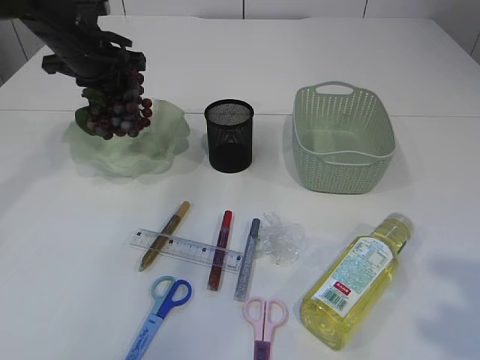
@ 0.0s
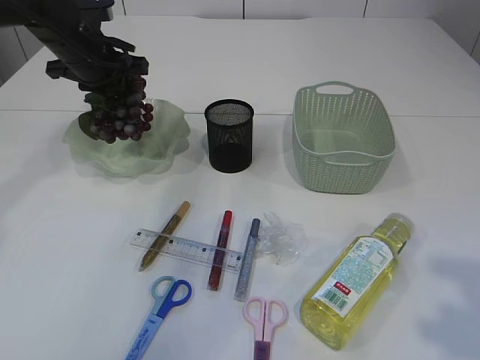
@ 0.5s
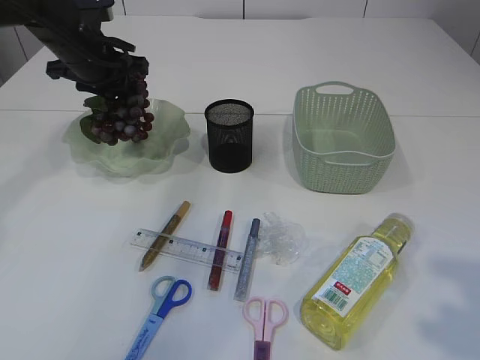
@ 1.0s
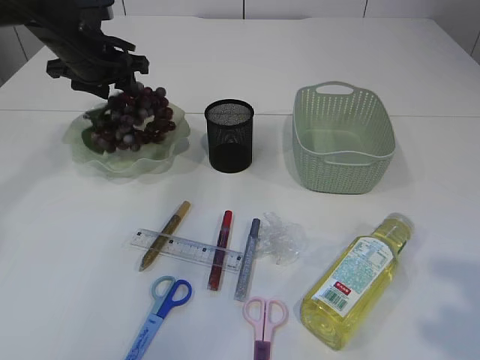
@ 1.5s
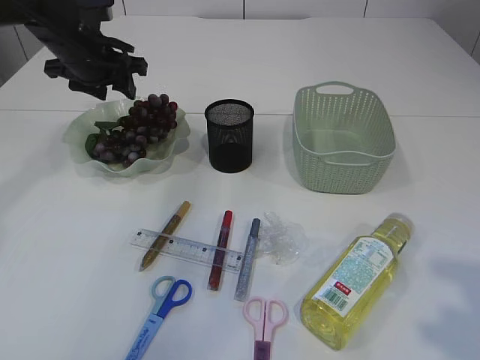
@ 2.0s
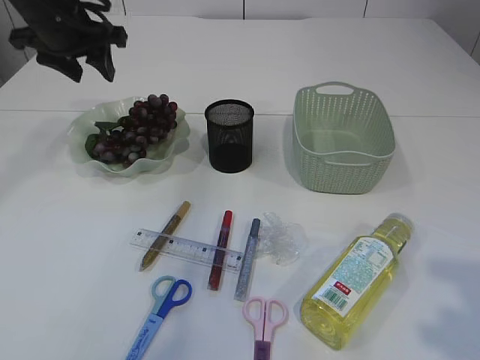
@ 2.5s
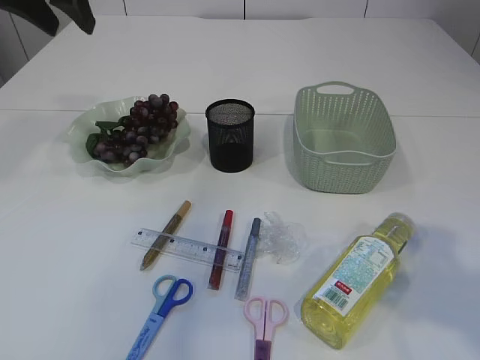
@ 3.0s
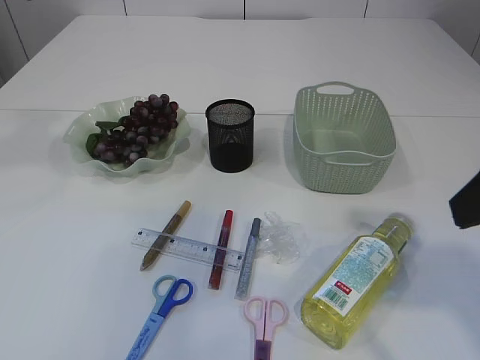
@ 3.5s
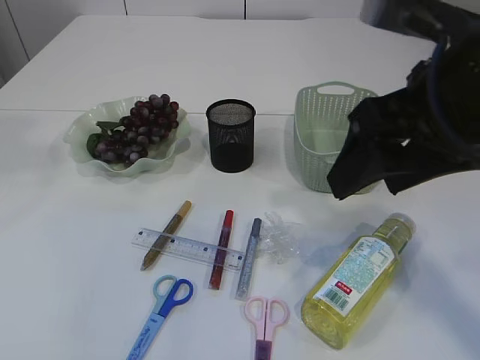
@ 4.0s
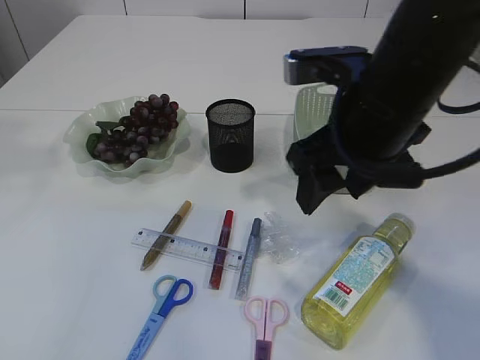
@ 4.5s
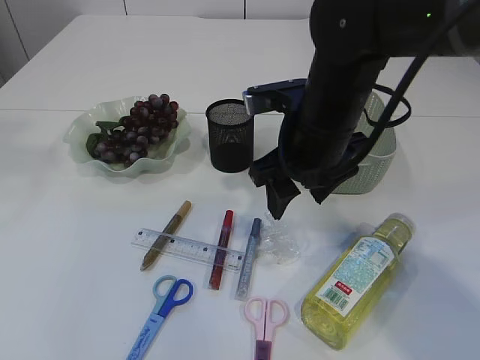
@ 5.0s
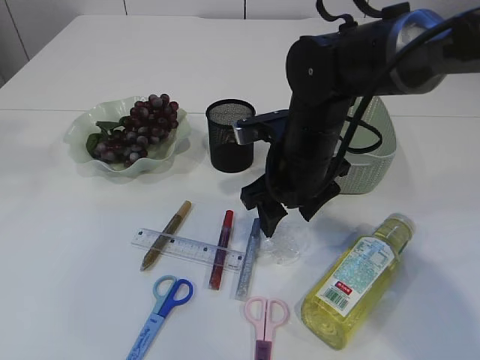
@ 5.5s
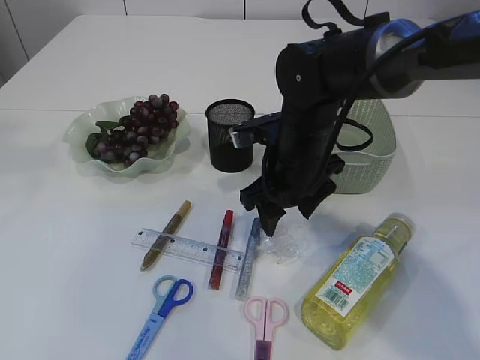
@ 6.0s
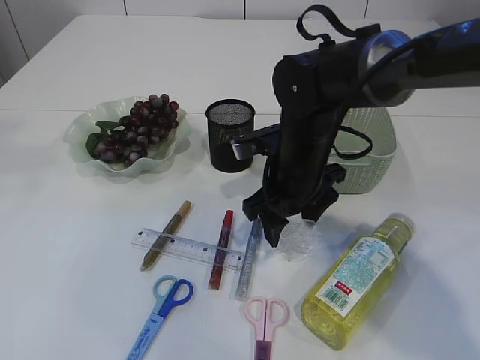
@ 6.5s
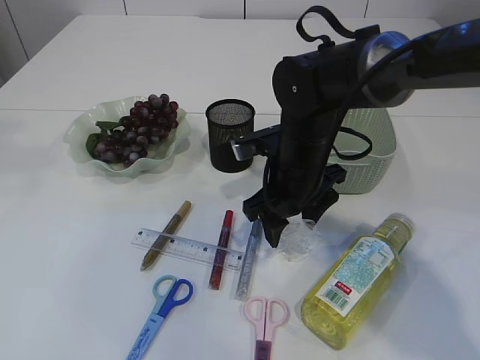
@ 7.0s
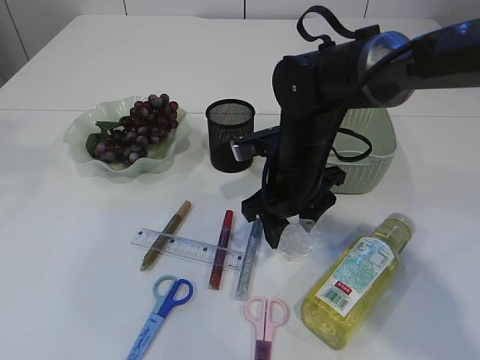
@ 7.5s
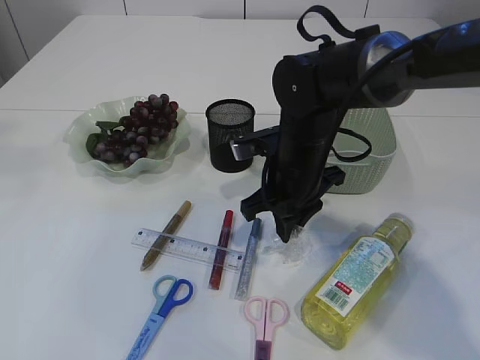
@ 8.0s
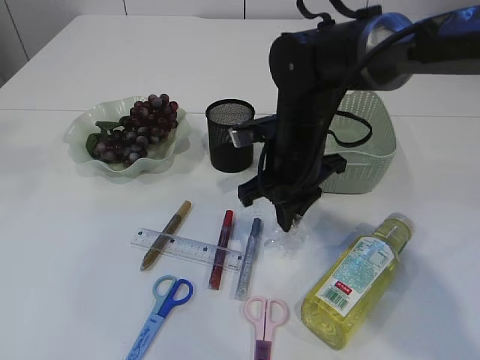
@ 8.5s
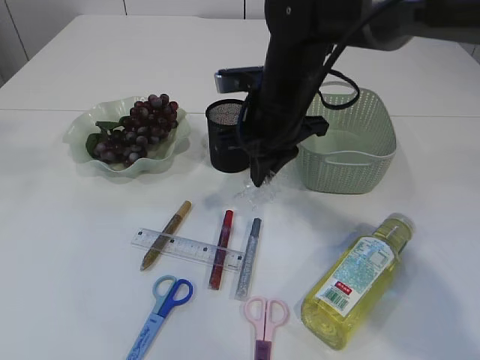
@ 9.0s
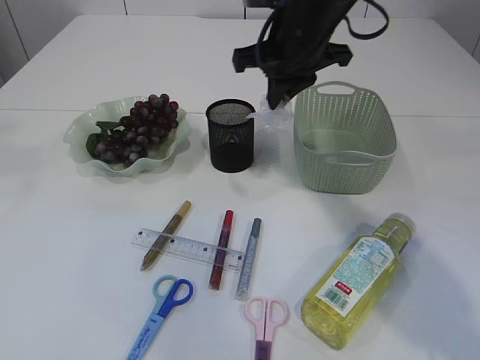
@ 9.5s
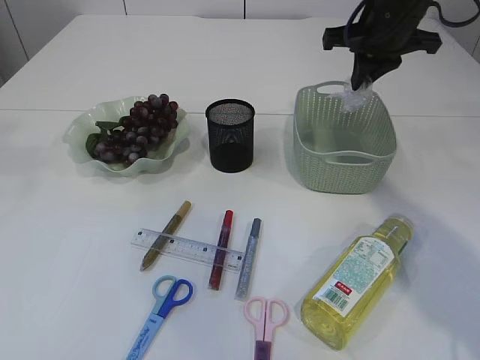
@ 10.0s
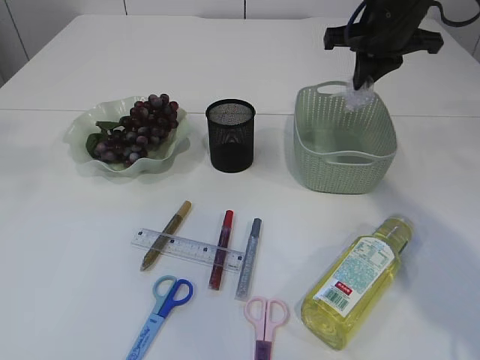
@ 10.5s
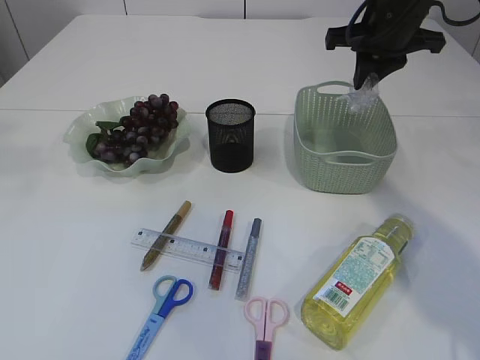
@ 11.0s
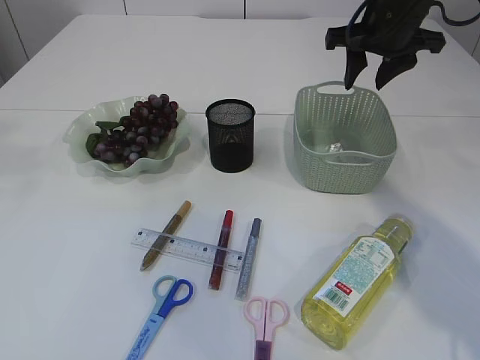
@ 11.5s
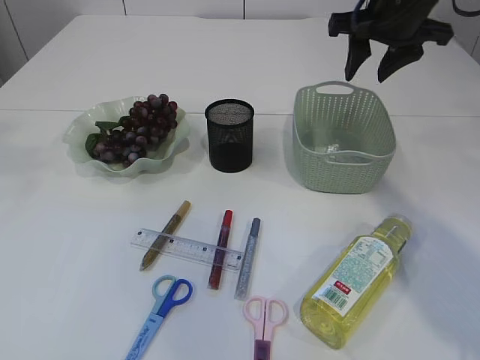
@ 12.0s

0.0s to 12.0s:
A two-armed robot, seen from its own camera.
Step, 0.0s to 2.0s: Place the grapes in the plate.
Step, 2.5s to 8.5s: Pick up the plastic.
0.0s to 2.0s: The left gripper opens up.
2.0s to 4.0s: The right gripper shifts some 20 cm forward and to the left. The left gripper moves upward and backward, roughly 30 cm.
4.0s to 6.0s: The right gripper goes about 25 cm downward, forward and to the left.
6.0s to 8.0s: The right gripper closes its fingers.
8.0s to 10.0s: The right gripper is displaced upward, to the right and forward by about 20 cm.
10.0s to 12.0s: The right gripper opens.

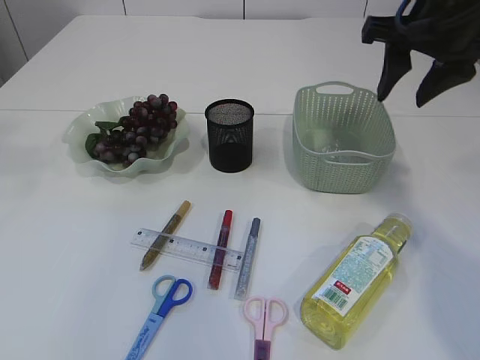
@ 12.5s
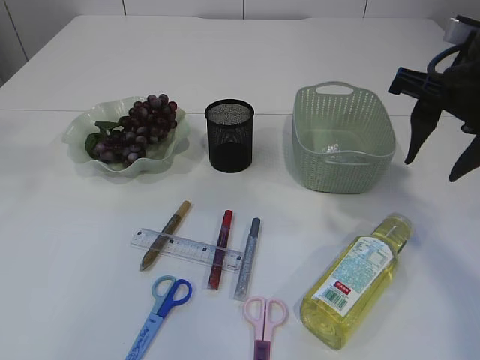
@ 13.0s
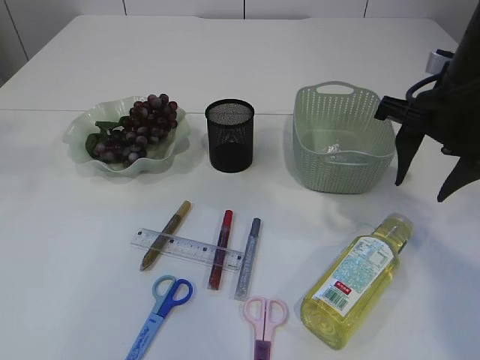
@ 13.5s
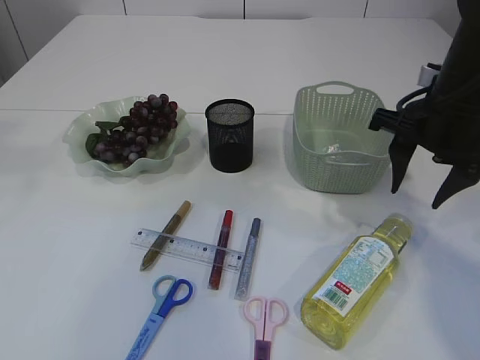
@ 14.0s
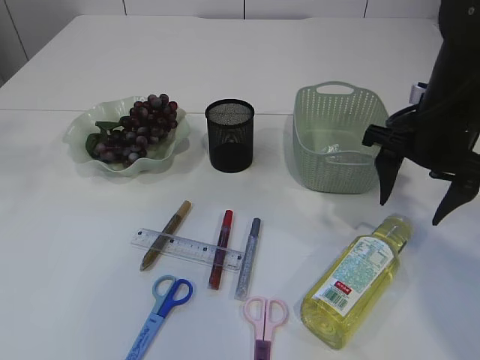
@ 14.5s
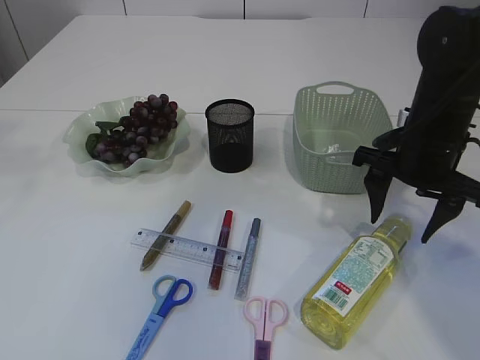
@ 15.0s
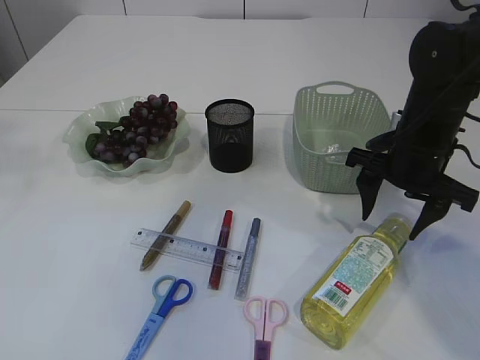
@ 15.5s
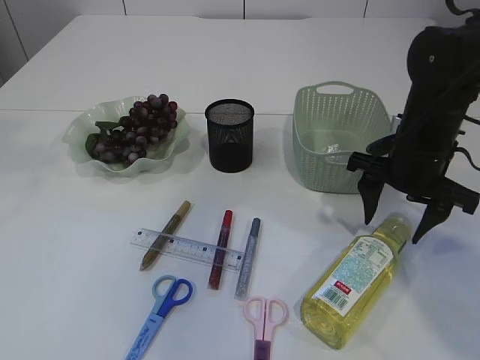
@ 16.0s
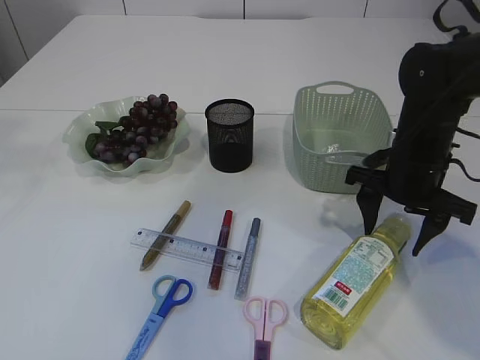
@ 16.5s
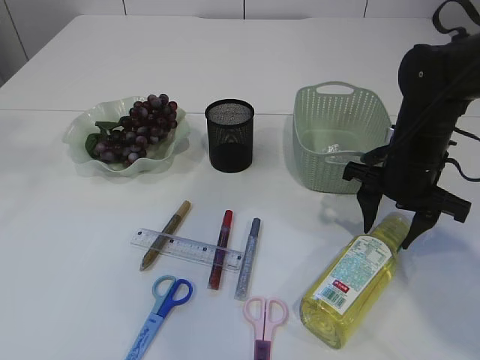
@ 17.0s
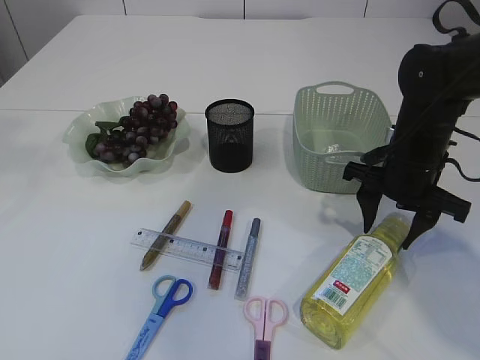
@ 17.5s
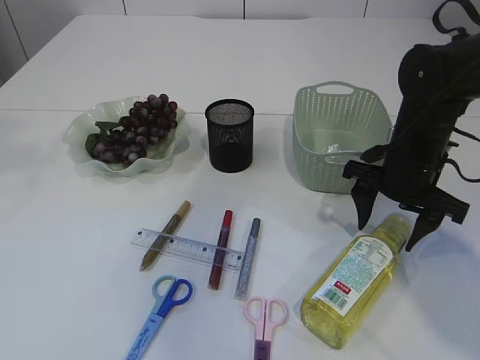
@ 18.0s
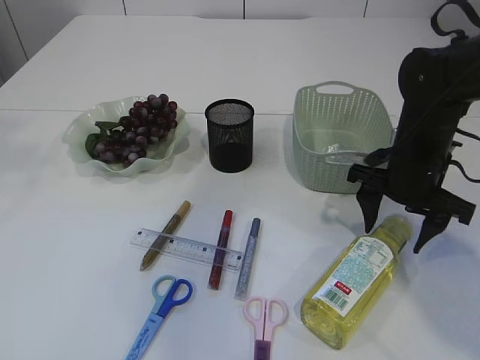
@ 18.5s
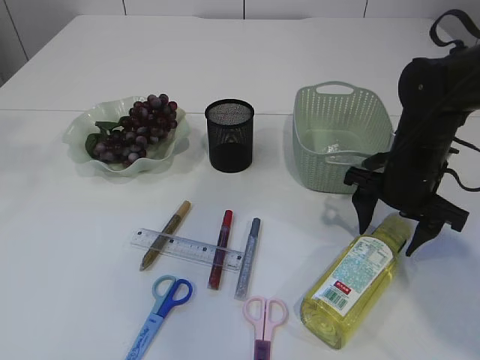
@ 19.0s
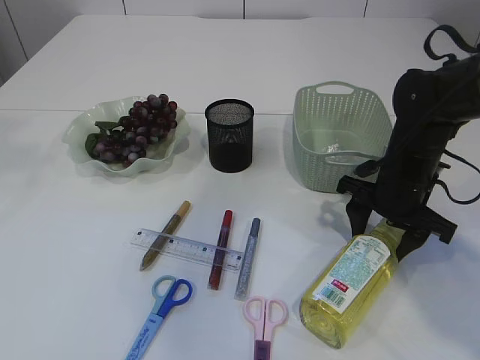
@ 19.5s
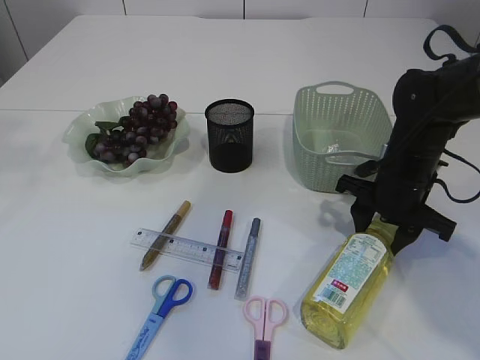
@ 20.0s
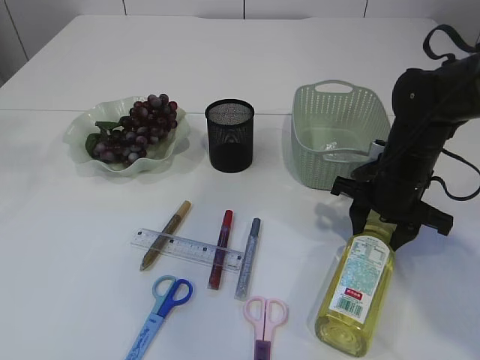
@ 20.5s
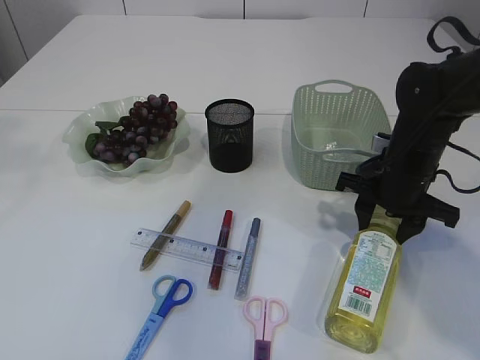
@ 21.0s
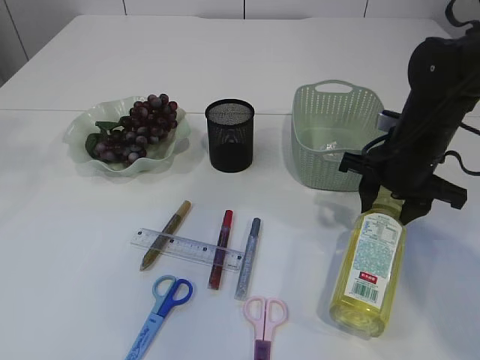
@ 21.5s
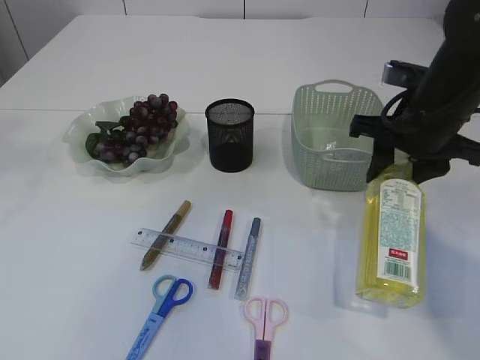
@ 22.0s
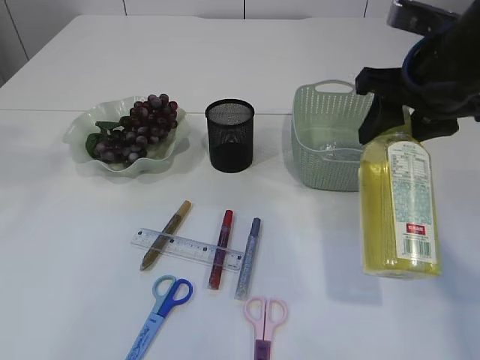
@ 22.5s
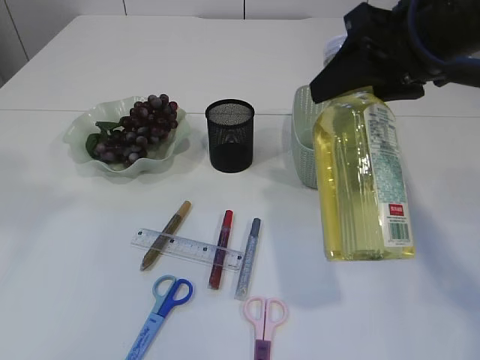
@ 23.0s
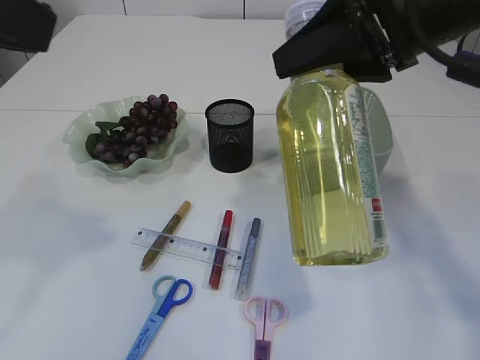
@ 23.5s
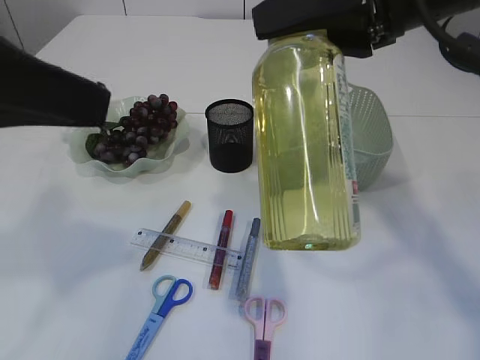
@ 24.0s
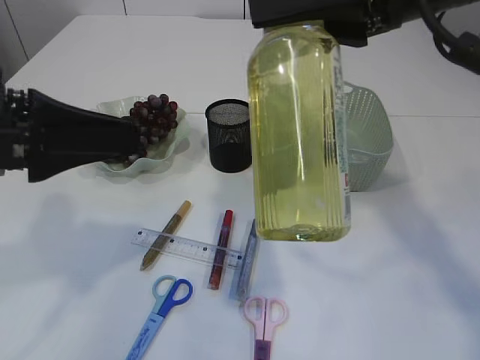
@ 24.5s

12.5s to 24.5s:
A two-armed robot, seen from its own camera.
Step, 12.5s to 22.0s: Pick up the bottle with the right arm.
12.5s to 14.5s: The right gripper travels downward by about 10 cm.
14.5s to 16.5s: The right gripper moves downward, about 5 cm.
16.5s to 18.5s: Both grippers stay put.
18.5s to 20.5s: The right gripper closes.
20.5s to 22.5s: The right gripper is displaced upward by roughly 15 cm.
22.5s to 24.5s: The right gripper shifts approximately 10 cm upward and to the left. The left gripper travels downward by roughly 20 cm.

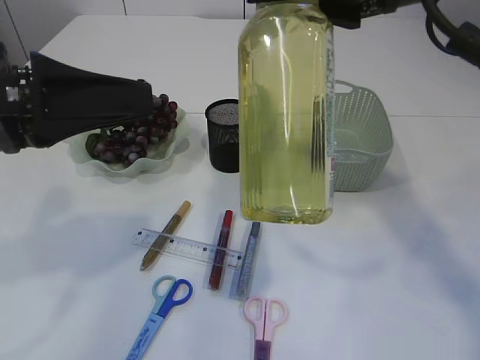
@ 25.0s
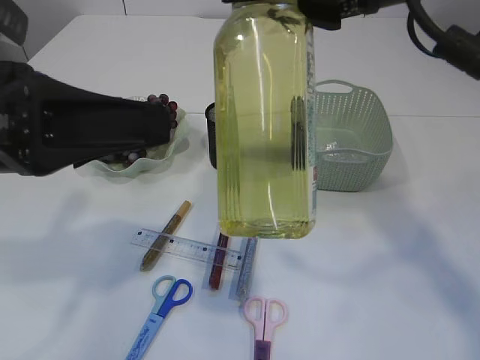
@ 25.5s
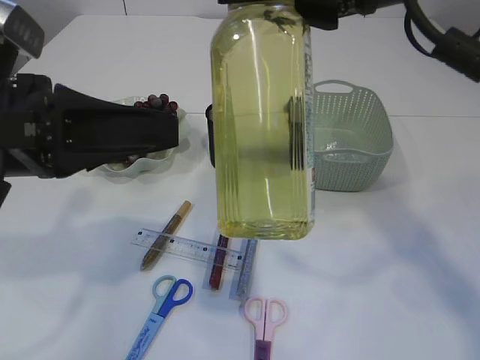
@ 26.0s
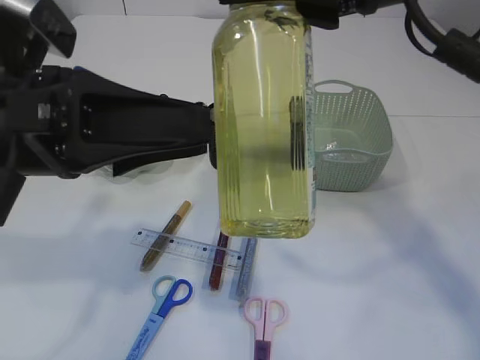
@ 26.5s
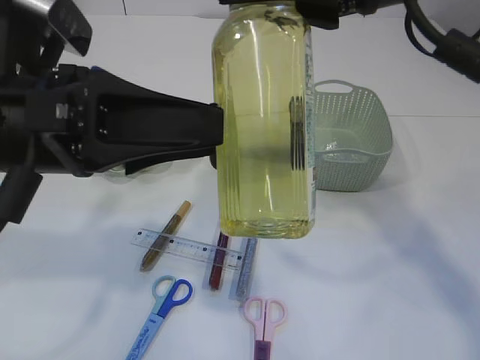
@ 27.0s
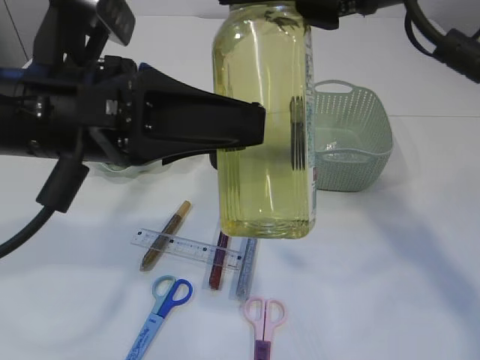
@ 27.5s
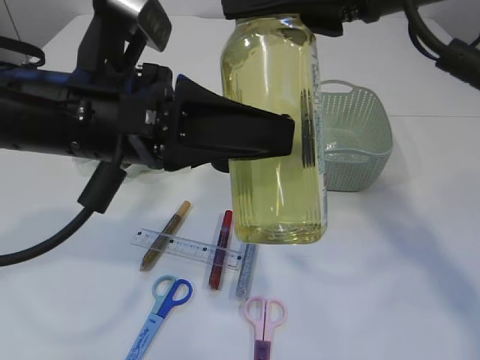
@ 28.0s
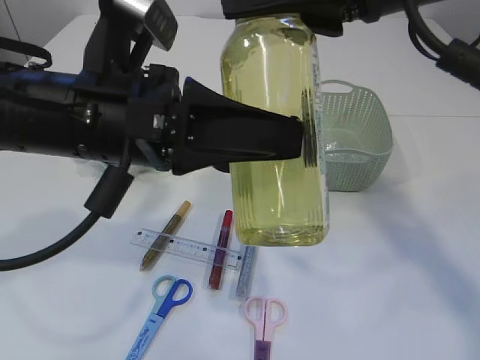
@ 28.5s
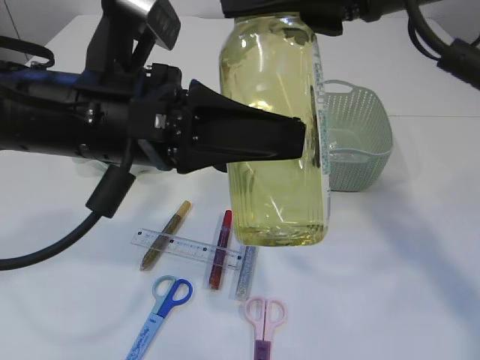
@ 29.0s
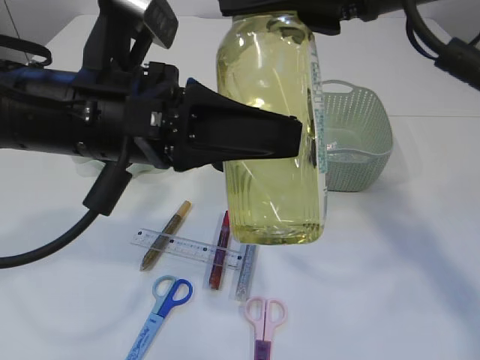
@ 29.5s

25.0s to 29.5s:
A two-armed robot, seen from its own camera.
25.0s to 27.0s: The left gripper changes place by about 5 cm.
27.0s to 29.5s: The left gripper moves to the right, some 5 cm.
